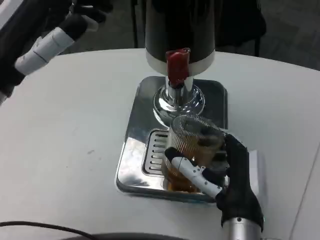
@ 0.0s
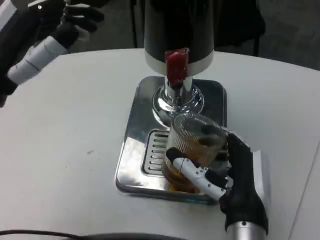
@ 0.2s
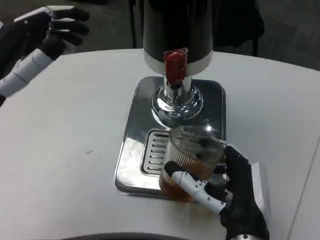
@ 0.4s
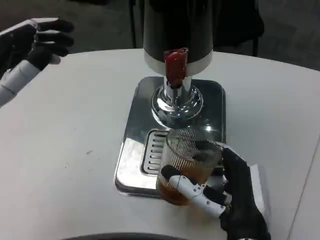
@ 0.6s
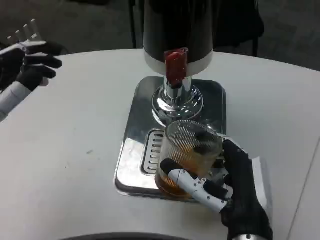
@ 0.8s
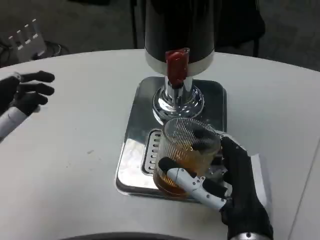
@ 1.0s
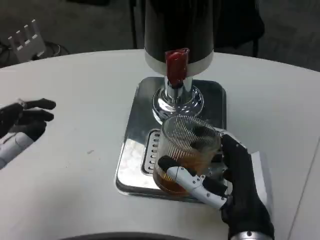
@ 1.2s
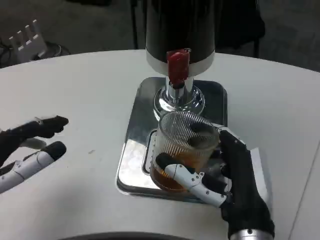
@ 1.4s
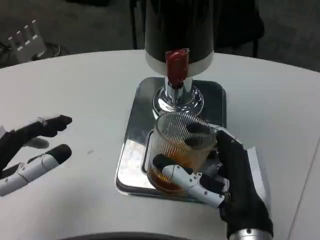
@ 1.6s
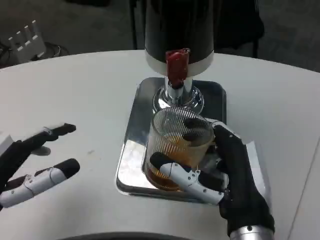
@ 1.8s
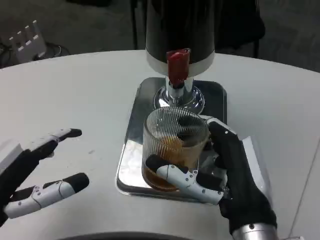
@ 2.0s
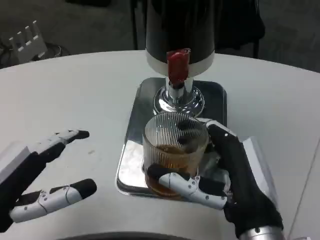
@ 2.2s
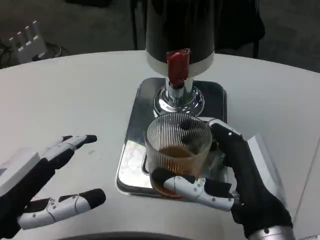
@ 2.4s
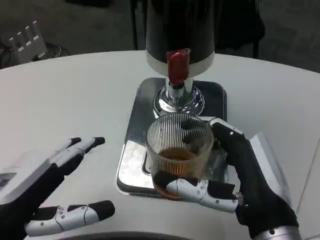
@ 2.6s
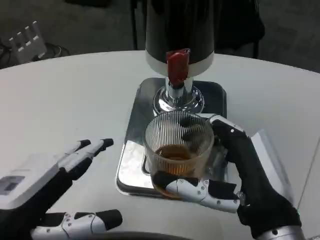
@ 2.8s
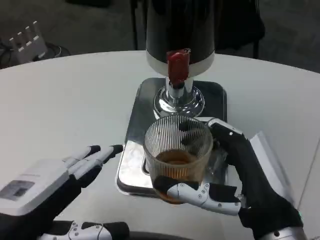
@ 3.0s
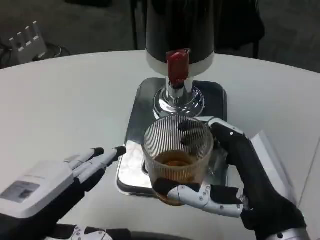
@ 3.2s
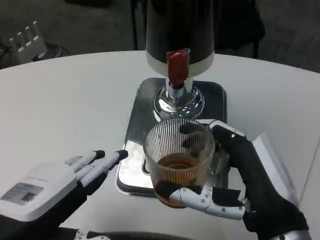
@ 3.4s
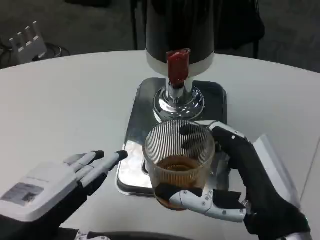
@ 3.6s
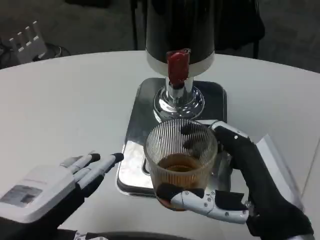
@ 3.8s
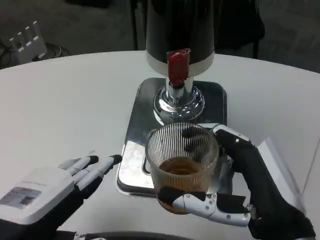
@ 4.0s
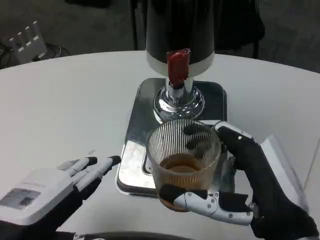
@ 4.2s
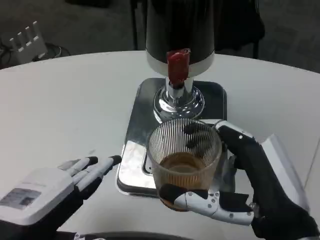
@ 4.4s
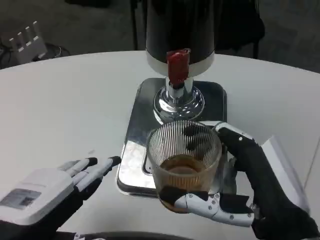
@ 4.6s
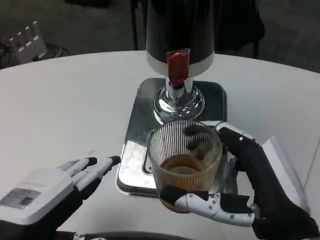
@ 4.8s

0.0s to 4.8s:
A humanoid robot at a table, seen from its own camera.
Task of the whole recording: Grasp the cup under the faucet to collect the drink, then remove the cup.
0.0s to 1.6s: The left hand moves downward and backward, some 15 cm.
1.6s to 3.2s: The left hand ends up about 5 cm from where it was; the right hand ends up some 5 cm from where it was.
3.2s to 4.8s: The hands move only a little.

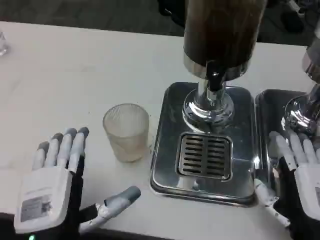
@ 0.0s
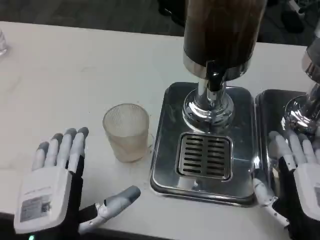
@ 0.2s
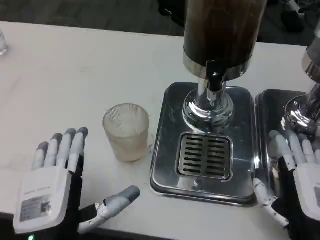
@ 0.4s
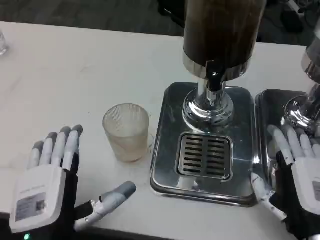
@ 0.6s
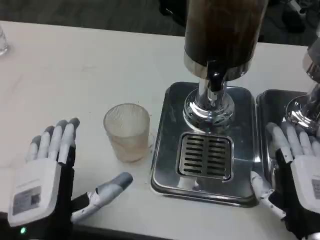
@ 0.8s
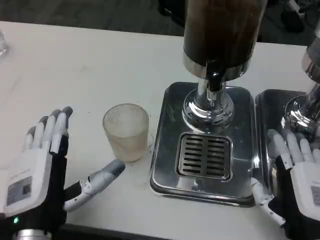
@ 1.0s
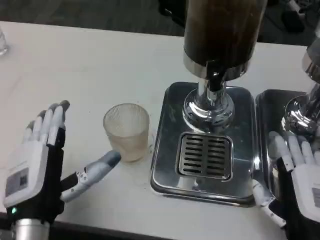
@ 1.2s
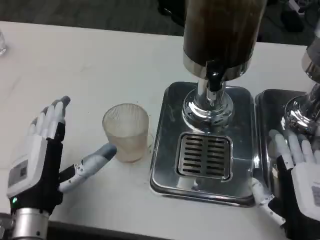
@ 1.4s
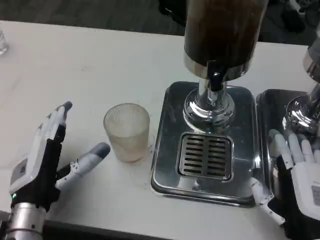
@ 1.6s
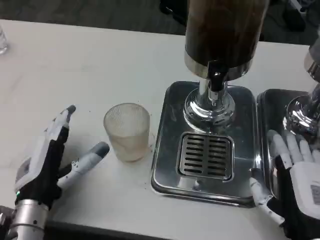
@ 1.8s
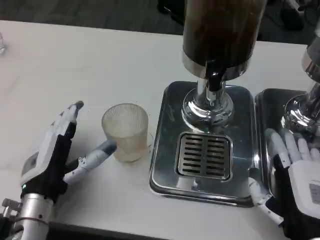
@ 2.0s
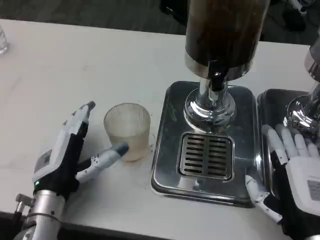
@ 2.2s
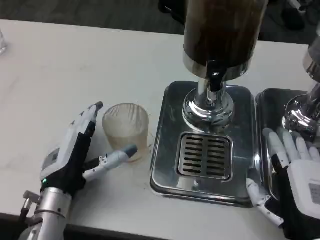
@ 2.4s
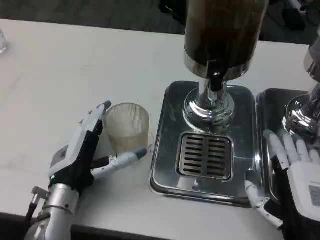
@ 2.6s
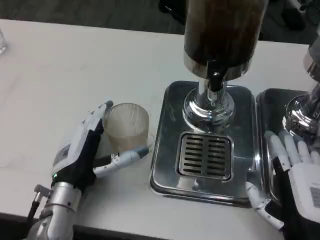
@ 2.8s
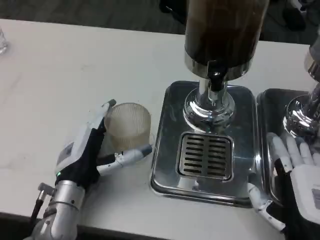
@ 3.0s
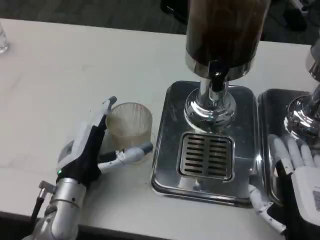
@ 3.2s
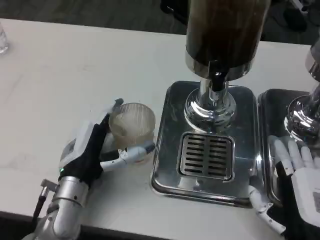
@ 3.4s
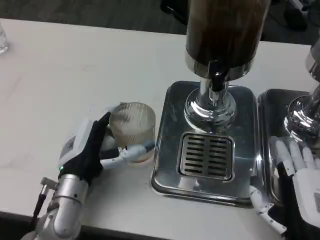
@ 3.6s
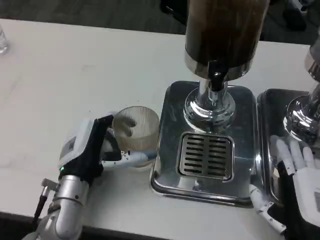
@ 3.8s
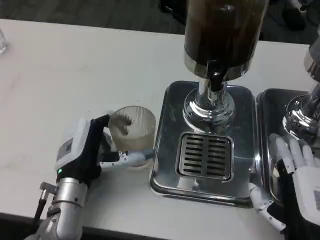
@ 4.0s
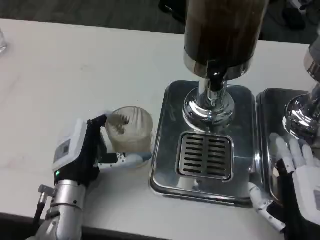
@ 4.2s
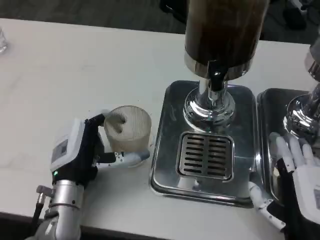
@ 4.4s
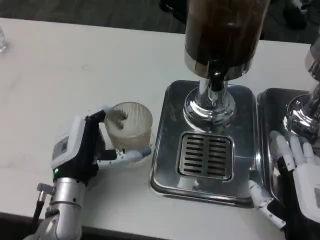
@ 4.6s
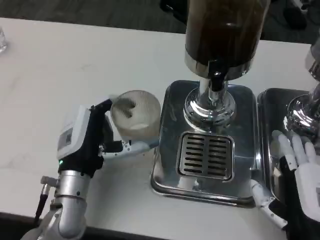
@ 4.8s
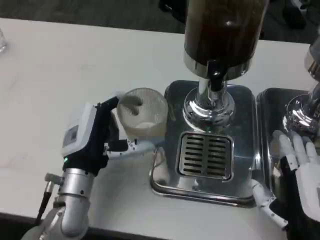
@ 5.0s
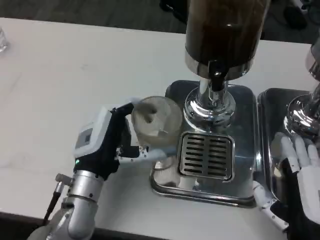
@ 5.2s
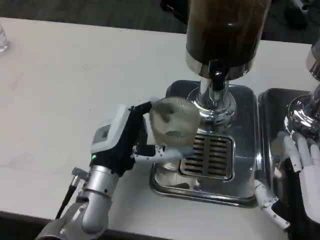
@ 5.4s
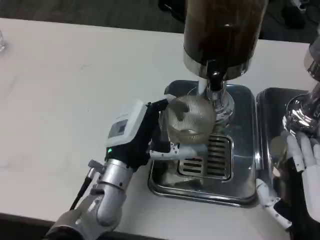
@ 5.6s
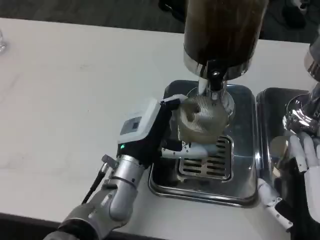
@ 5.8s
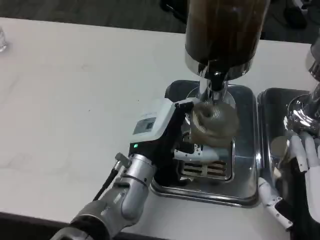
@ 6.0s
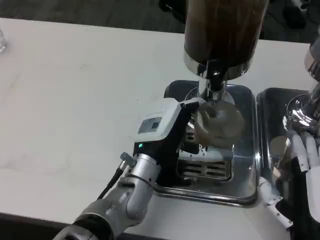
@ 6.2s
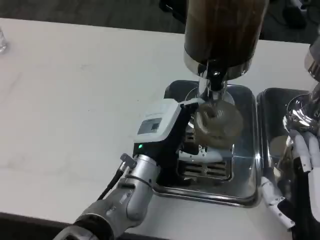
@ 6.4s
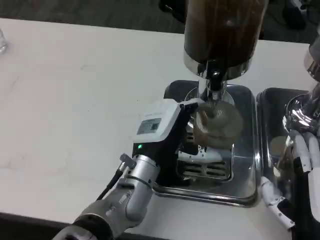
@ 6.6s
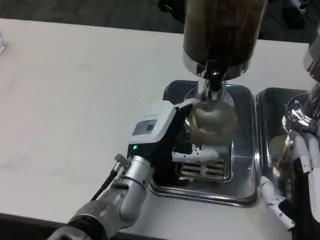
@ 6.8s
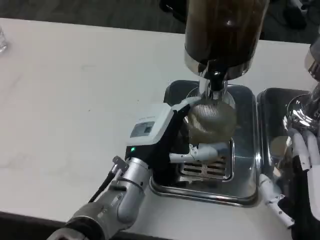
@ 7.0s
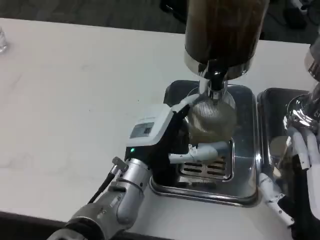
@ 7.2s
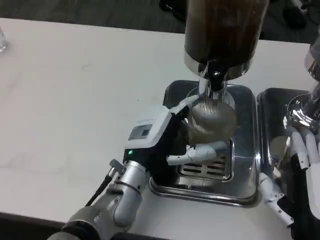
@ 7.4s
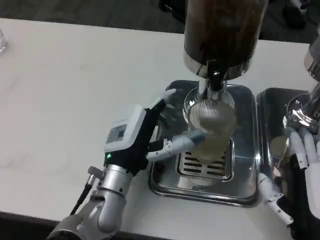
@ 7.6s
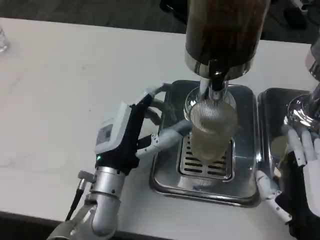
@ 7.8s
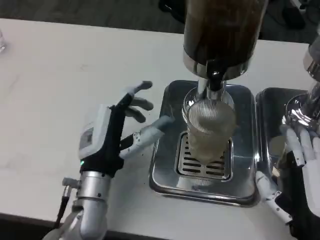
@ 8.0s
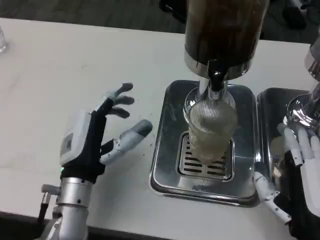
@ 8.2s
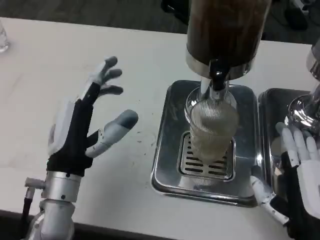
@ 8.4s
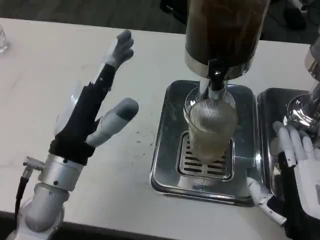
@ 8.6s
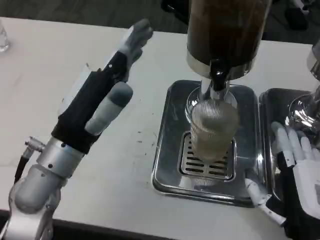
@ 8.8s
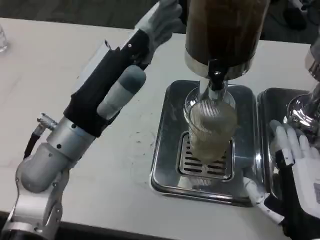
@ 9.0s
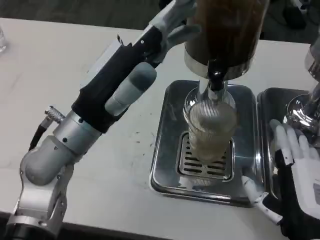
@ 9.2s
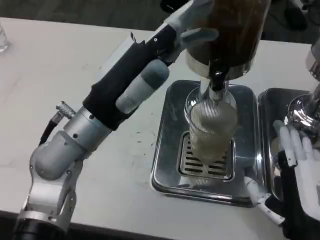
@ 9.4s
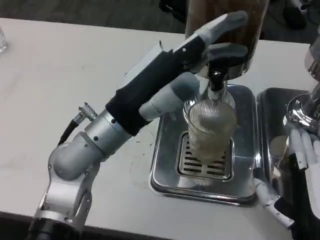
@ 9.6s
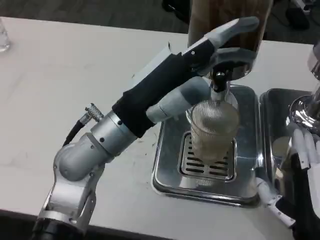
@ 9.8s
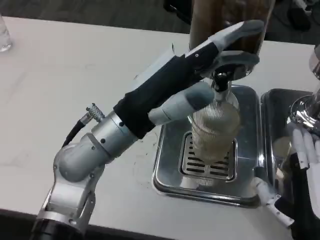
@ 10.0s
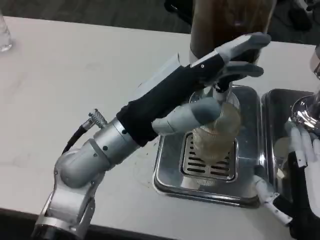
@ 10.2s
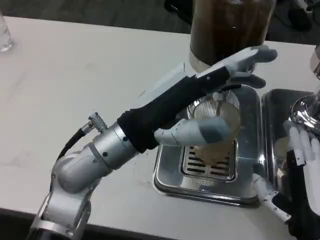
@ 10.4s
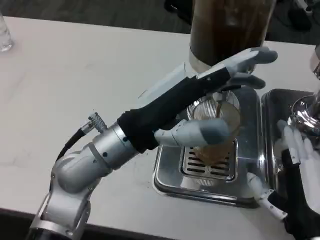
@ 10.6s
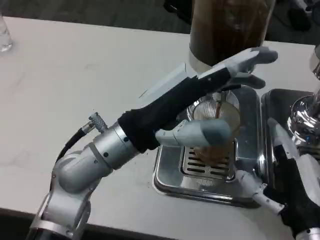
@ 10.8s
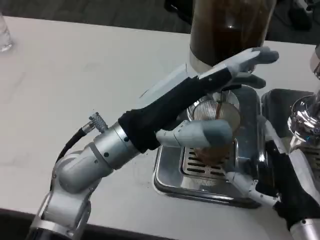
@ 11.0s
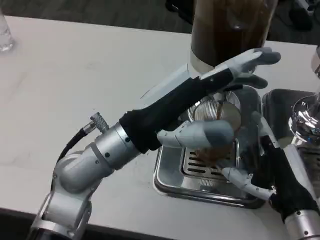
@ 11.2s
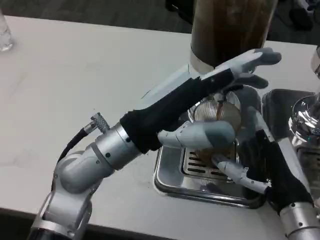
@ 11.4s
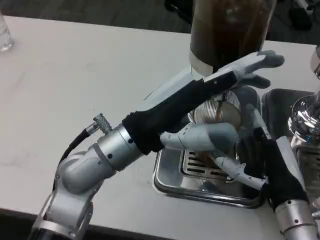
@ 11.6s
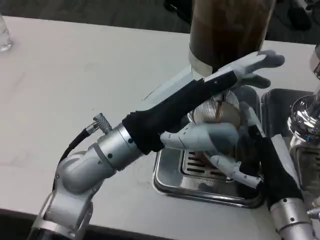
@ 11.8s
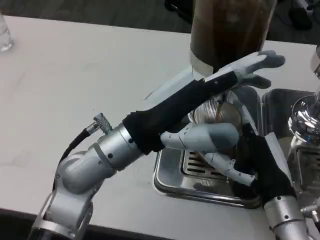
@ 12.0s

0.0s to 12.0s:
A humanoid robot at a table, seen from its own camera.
Task of the whole recording: Grasp the cup under the faucet to collect the drink, then remove the cup.
0.0s to 1.6s: The left hand goes about 10 cm forward and to the left.
1.6s to 3.0s: The left hand moves about 5 cm.
3.0s to 4.4s: The hands stay close to where they were, moving slightly.
4.4s to 6.0s: The left hand travels to the right by approximately 10 cm.
6.0s to 7.6s: There are only small adjustments of the hands.
7.6s to 9.0s: The left hand is displaced upward and to the left by roughly 15 cm.
10.4s to 12.0s: The right hand travels forward by approximately 5 cm.

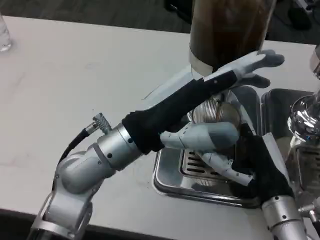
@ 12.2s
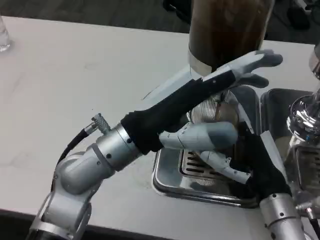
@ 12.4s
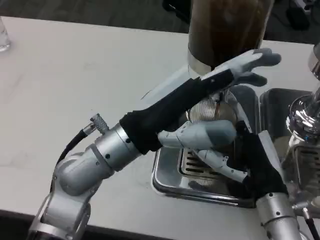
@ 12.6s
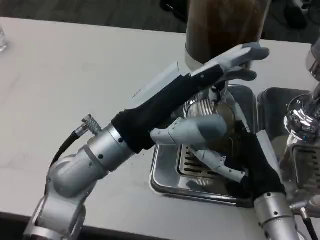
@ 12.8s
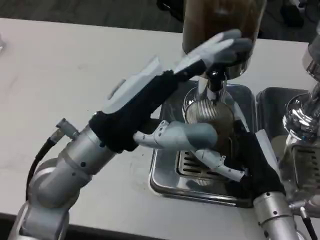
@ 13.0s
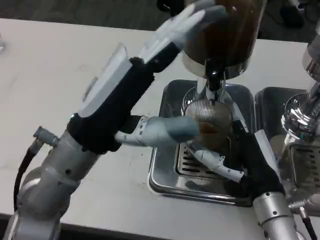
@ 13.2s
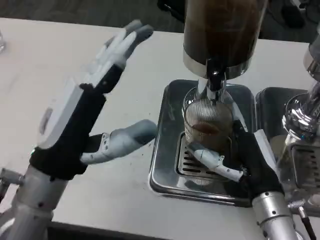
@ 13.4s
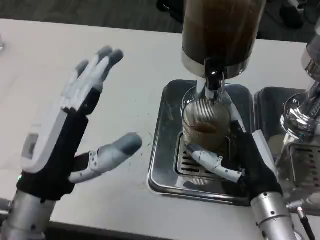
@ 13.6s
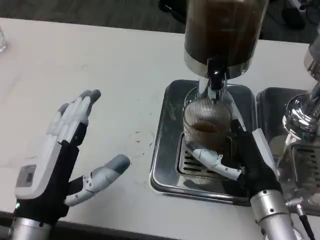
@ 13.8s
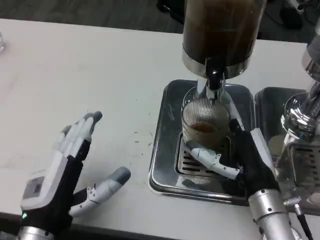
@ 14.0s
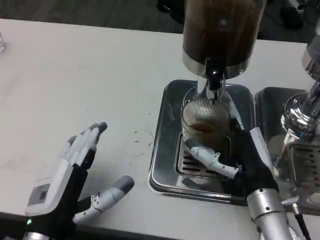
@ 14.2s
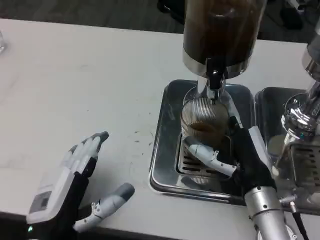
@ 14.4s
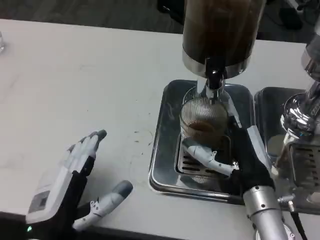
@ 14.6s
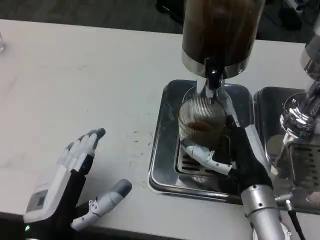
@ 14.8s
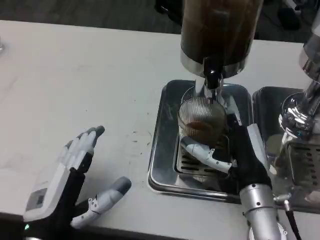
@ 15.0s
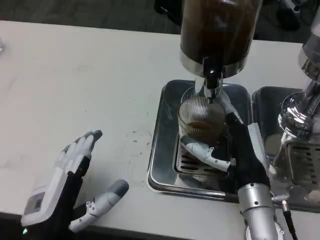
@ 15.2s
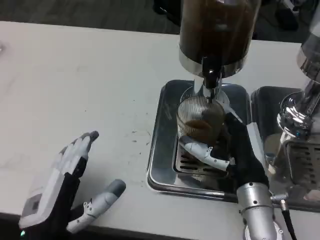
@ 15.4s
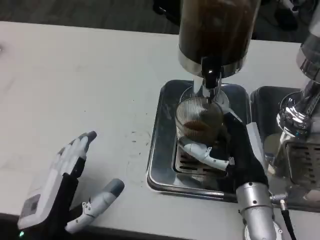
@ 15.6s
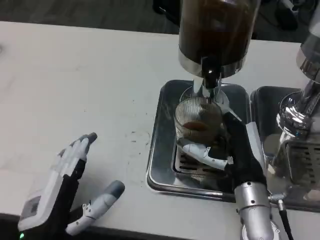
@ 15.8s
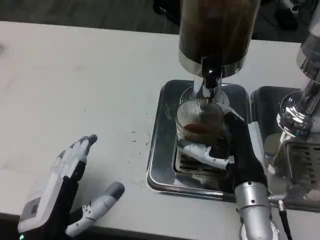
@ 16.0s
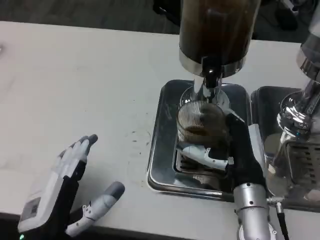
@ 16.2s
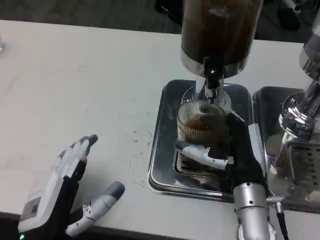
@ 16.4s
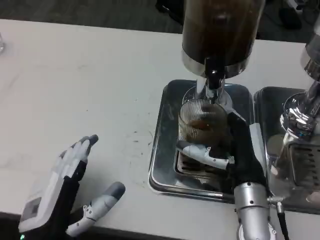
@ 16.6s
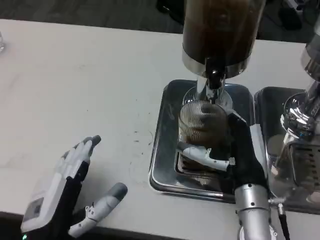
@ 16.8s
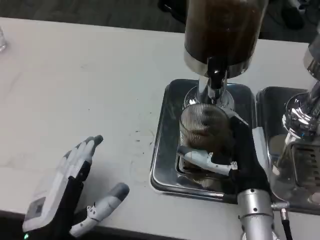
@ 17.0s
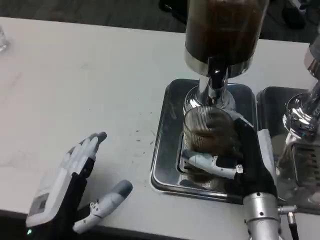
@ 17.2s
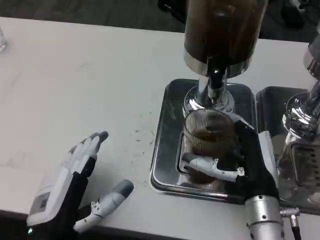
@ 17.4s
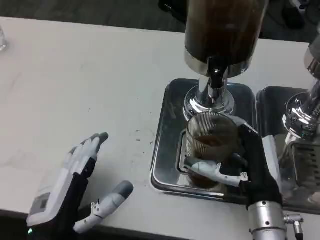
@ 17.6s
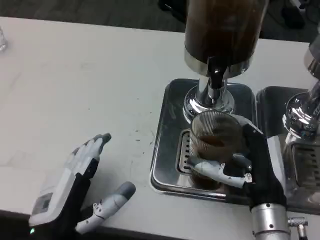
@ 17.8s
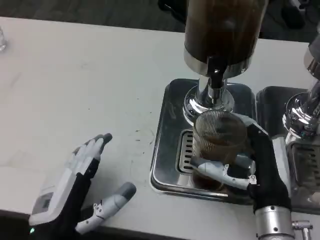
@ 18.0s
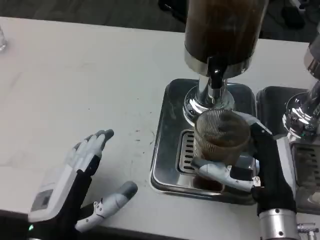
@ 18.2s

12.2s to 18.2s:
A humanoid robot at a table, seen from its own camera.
Task of the whole recording: Grasp the cup under the faucet to collect the drink, then remove the cup.
12.2s to 13.8s: The left hand goes about 15 cm backward, downward and to the left.
15.2s to 16.6s: The hands make only small movements.
16.6s to 18.2s: The right hand is displaced backward by approximately 5 cm.
